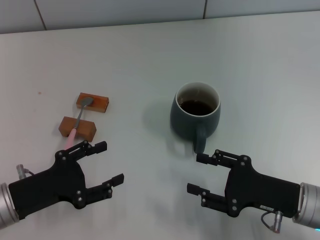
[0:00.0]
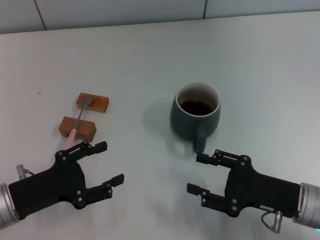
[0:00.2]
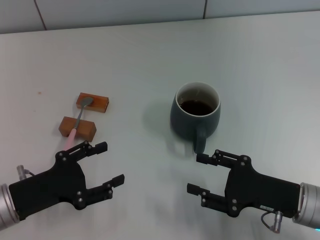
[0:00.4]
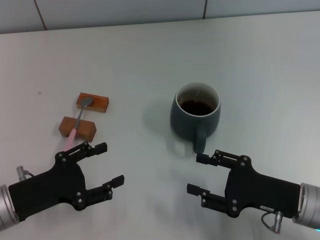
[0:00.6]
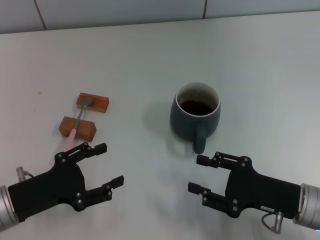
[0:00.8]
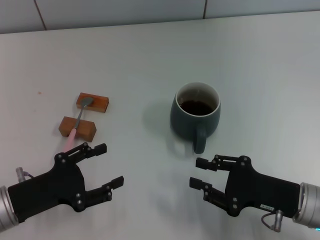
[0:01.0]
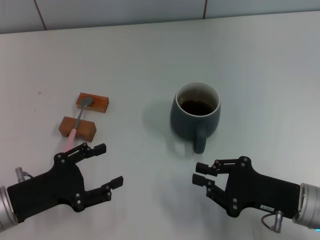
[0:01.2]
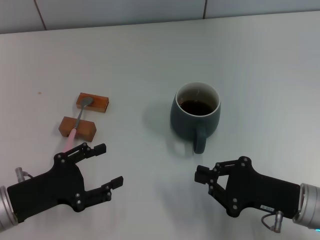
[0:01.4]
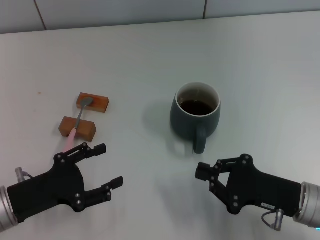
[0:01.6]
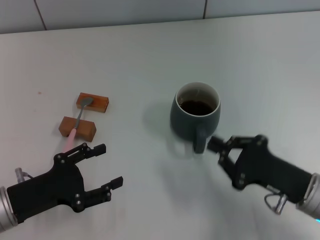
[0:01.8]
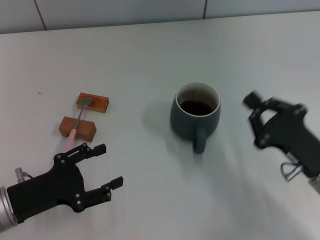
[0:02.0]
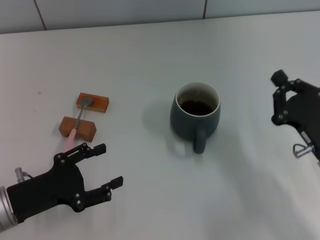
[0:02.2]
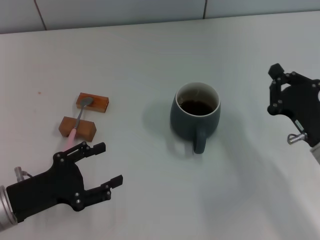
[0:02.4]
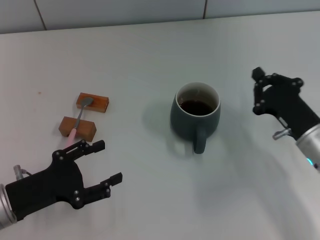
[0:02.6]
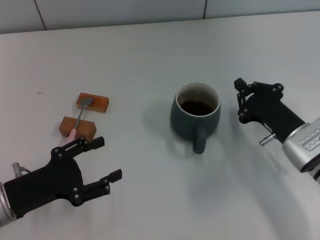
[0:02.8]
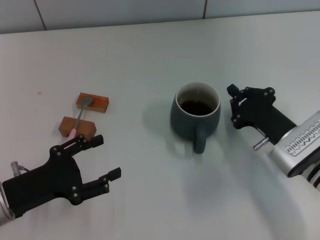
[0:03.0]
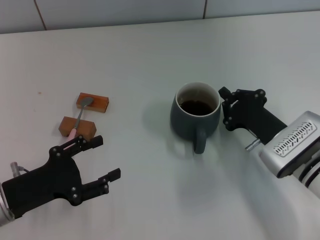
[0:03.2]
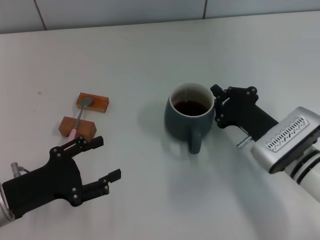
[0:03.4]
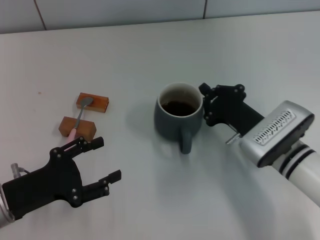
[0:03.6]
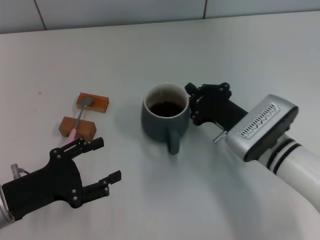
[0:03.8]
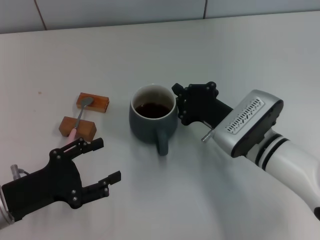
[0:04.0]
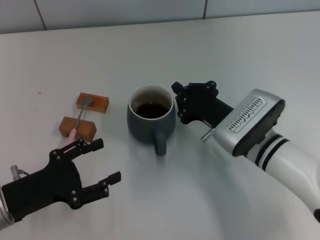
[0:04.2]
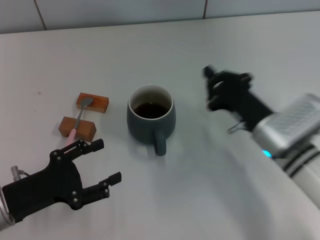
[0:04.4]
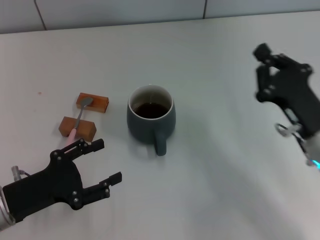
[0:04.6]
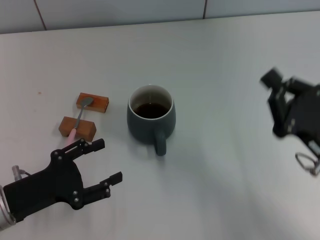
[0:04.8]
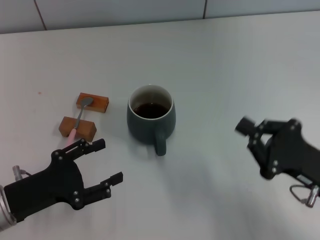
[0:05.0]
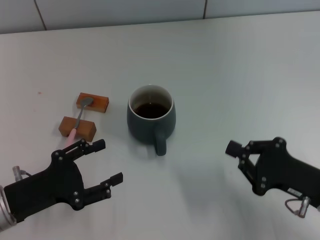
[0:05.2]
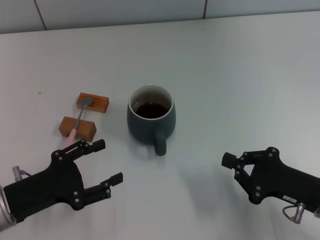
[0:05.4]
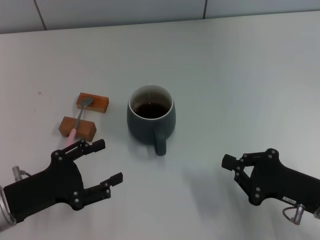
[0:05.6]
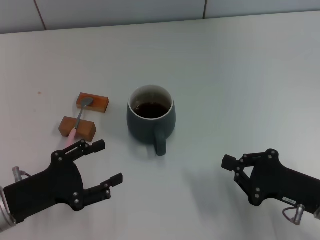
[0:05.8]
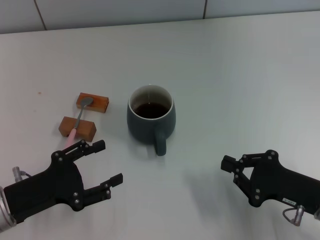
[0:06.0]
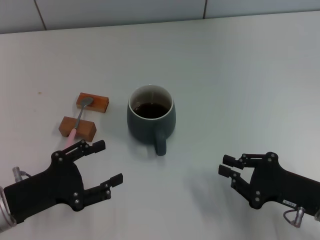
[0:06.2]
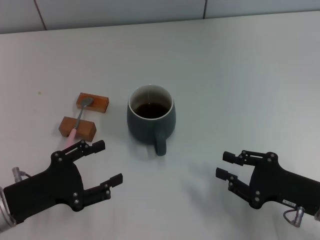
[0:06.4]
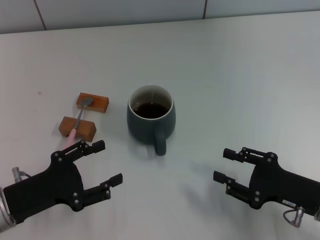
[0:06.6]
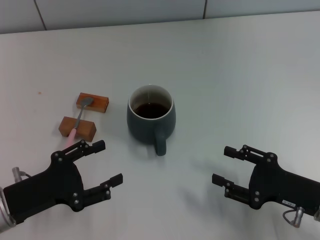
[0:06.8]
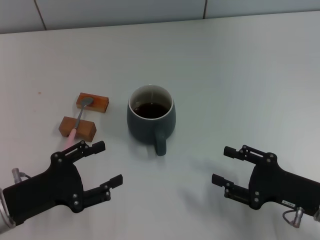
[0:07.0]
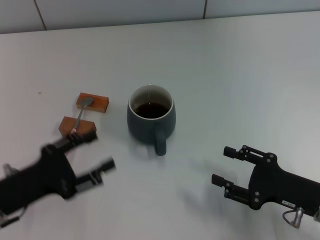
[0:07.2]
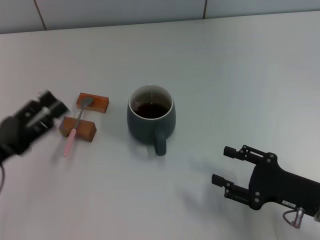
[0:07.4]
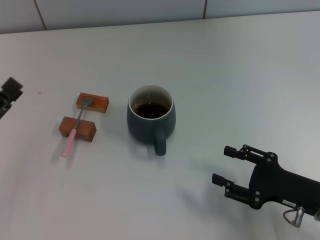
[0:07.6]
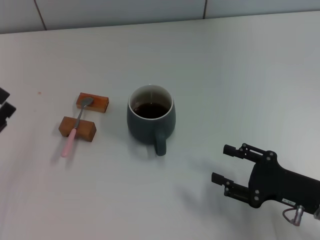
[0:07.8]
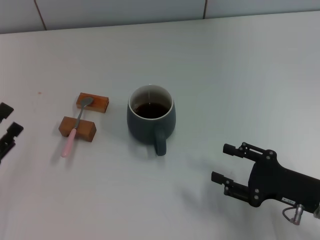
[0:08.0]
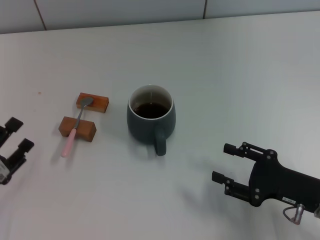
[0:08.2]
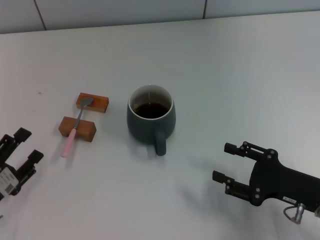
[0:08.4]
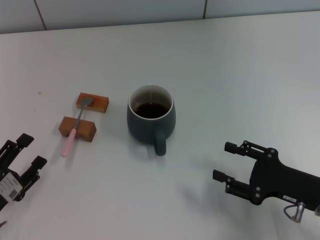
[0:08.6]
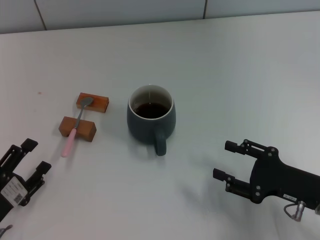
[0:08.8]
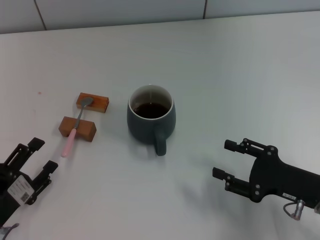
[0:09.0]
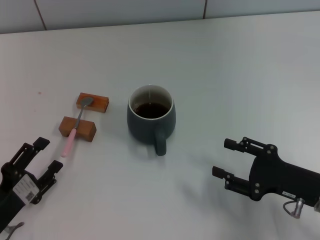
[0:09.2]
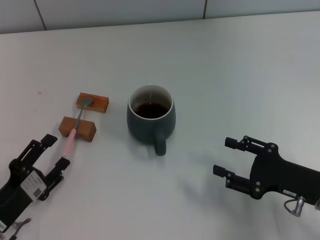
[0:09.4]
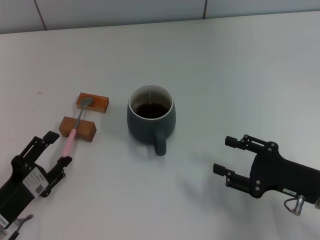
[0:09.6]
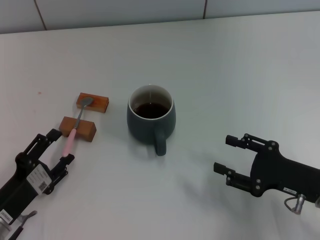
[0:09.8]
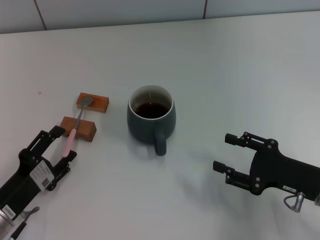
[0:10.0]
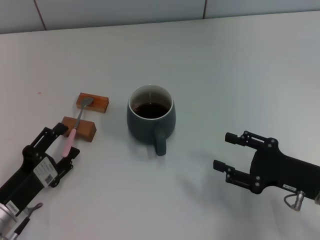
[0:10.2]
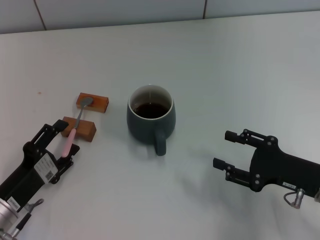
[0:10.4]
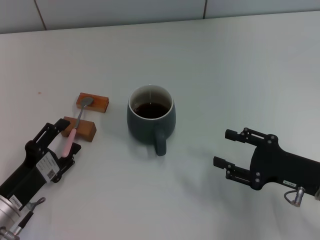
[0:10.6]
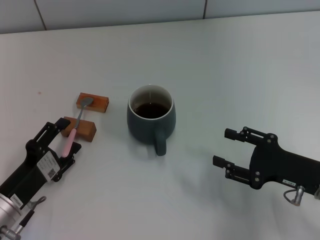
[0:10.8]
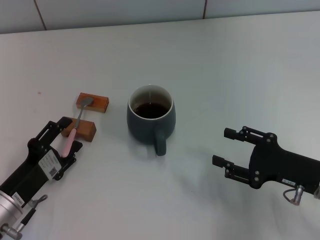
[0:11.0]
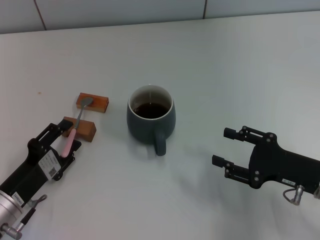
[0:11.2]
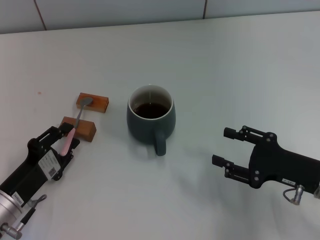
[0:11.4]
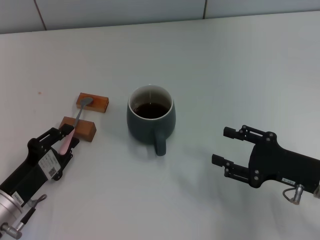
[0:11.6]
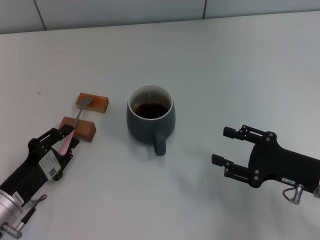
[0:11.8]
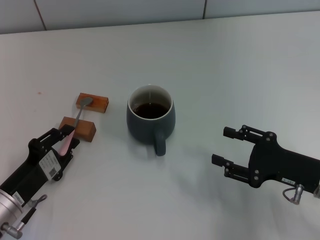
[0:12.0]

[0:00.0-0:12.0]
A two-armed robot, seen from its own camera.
Task of the whole recording: Move the grey cup to the center, lift the pink spoon, stir it three times in the cup, and put the spoon into the cup.
Step, 0:00.0 to 0:04.4: Move the cup with coffee to the center of view with the right gripper.
0:00.0 to 0:01.6: The right gripper closes.
0:01.6 to 0:03.0: The right gripper travels forward by some 5 cm.
0:04.4 to 0:06.0: The right gripper travels backward and to the right by some 10 cm.
0:06.0 to 0:07.6: The right gripper opens its fingers. The left gripper heads to the left, covering about 5 cm.
0:07.6 to 0:09.0: The left gripper is displaced downward and backward by about 10 cm.
0:09.0 to 0:10.4: The left gripper changes place by some 5 cm.
0:10.4 to 0:12.0: The left gripper closes its fingers.

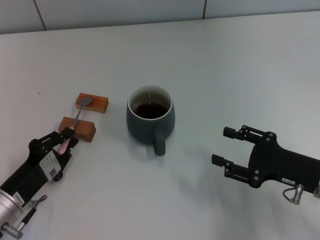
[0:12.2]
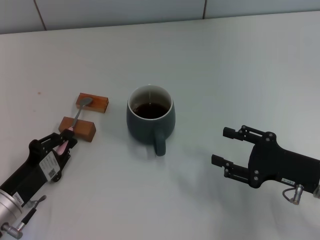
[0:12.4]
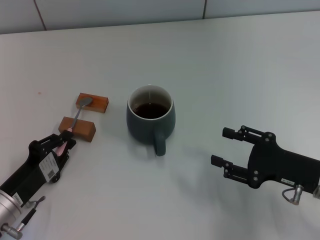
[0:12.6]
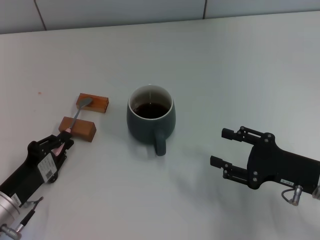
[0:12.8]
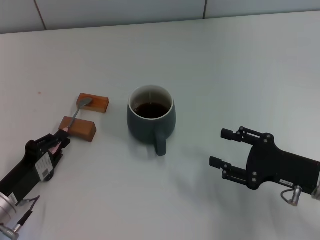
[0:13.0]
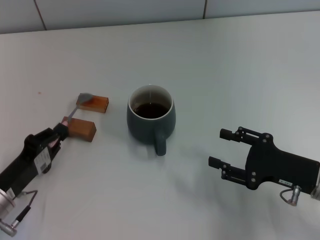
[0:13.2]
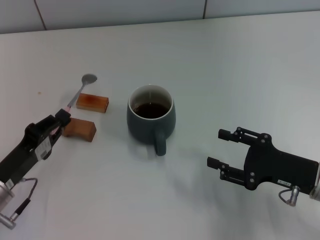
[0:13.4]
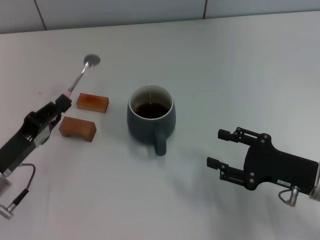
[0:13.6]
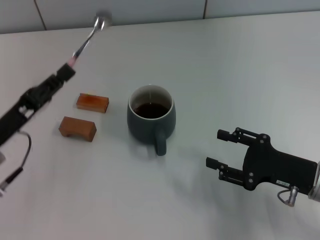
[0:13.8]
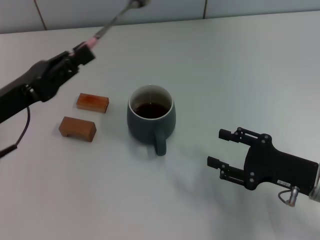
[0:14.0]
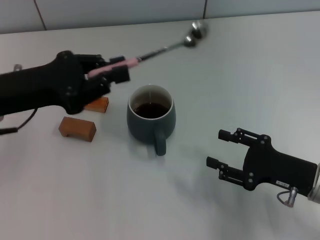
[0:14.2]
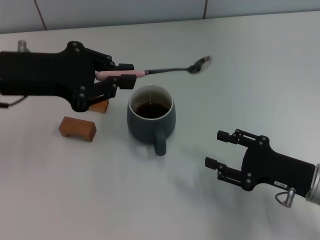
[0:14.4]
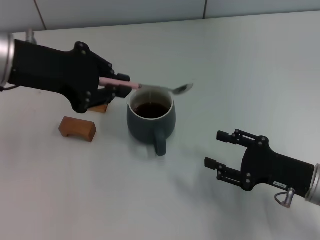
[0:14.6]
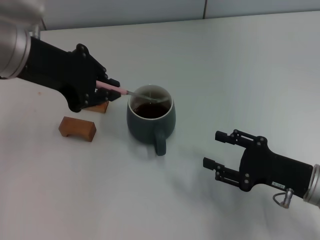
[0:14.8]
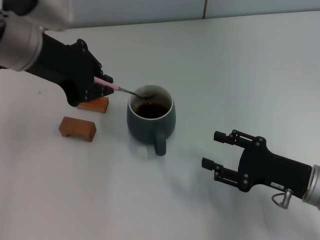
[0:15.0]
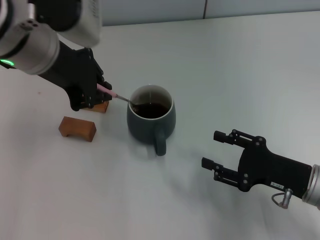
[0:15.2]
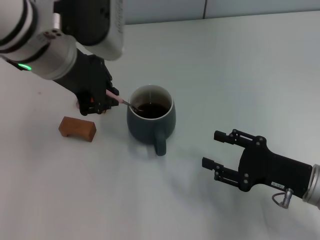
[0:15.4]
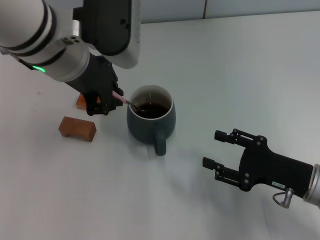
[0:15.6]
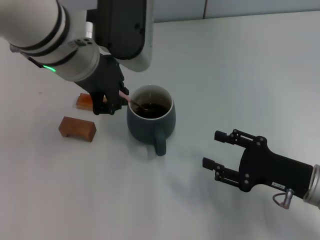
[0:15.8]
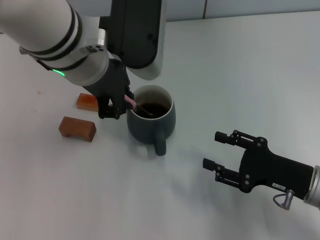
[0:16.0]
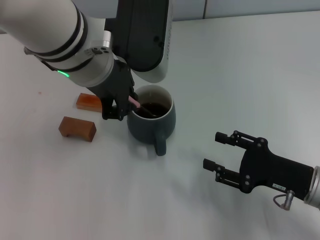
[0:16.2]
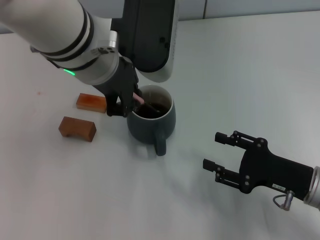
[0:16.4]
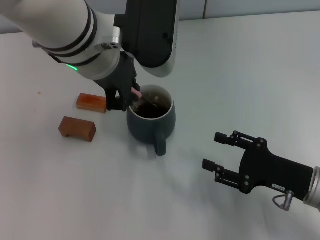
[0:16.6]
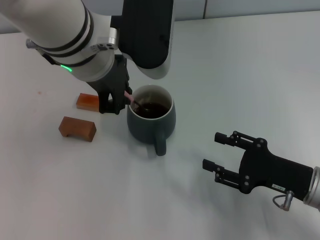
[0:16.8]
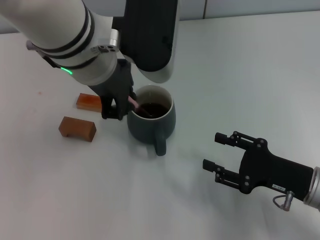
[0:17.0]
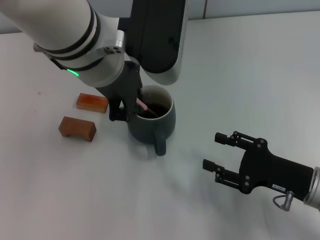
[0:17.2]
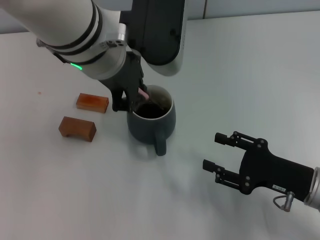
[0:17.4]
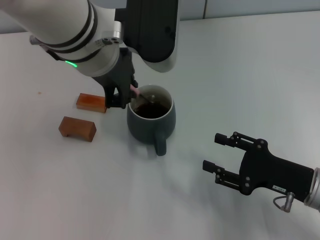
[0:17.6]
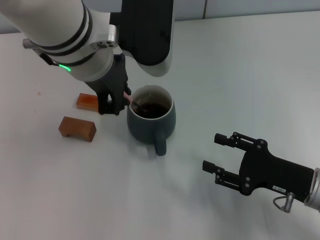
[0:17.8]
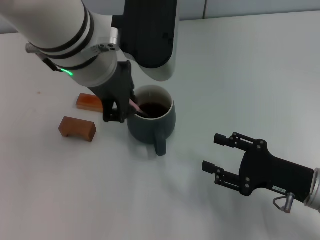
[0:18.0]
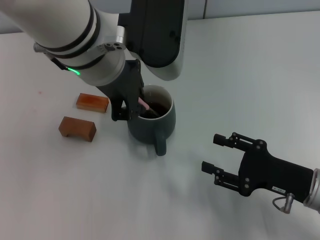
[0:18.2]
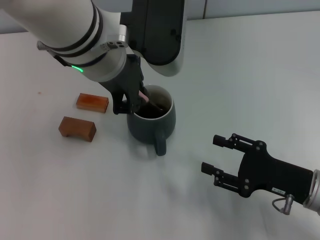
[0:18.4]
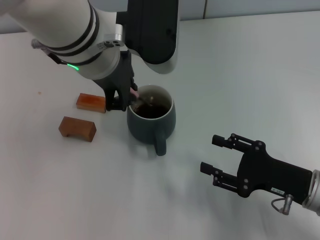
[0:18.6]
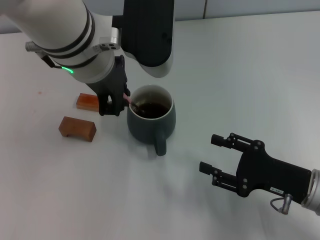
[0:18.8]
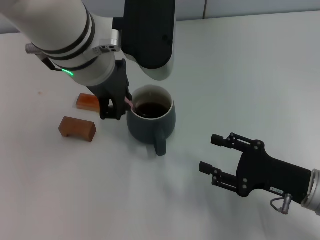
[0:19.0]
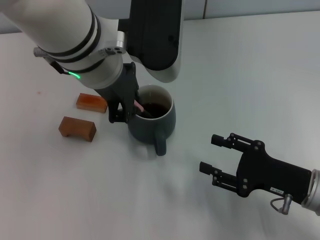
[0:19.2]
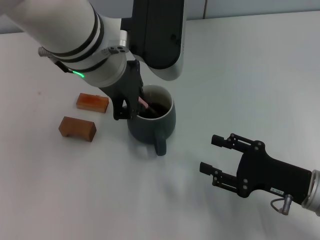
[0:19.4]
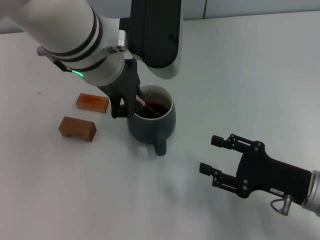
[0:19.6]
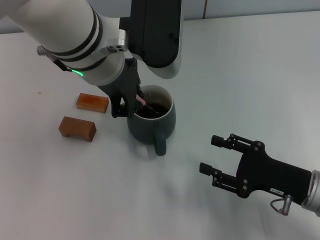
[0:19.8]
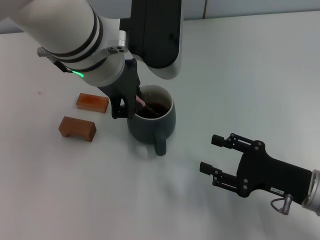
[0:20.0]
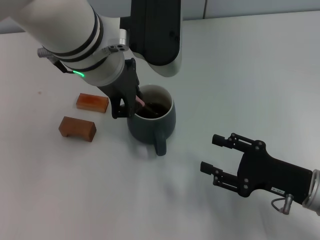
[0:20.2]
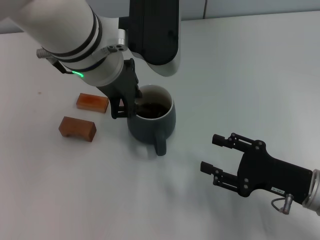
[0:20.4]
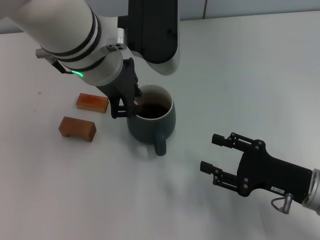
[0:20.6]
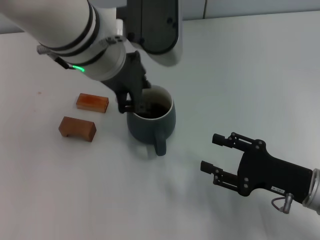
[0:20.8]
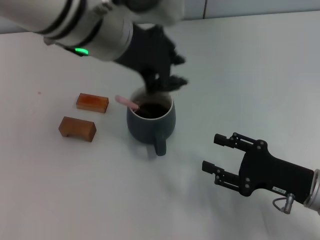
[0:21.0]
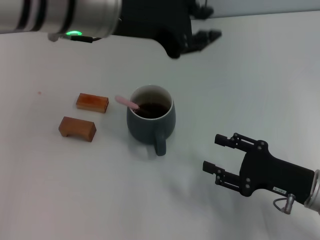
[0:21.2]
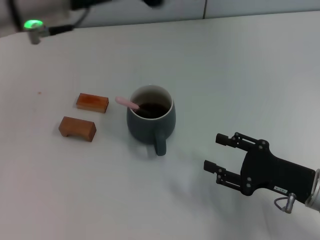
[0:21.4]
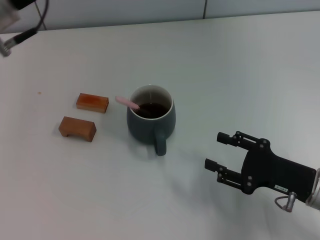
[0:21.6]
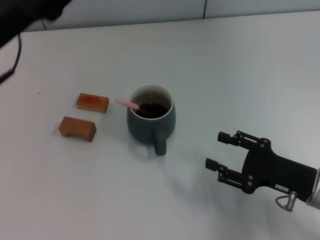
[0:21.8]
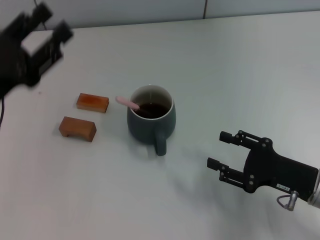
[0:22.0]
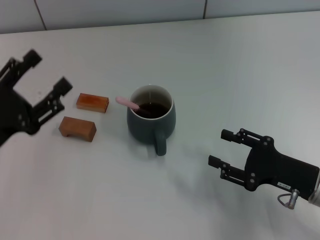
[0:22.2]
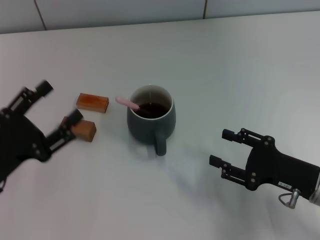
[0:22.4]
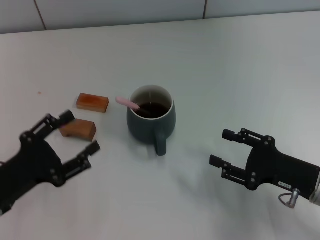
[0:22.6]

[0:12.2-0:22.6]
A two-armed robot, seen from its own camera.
Task of the whole recording: Move the grey cup to the center, lift the pink spoon, stir it three times in the cup, and put the spoon into the cup.
Step, 0:13.8 to 0:20.8: Stir the coffee in the cup with the left gripper.
0:13.6 to 0:15.2: The left gripper heads upward, to the right and forward, covering approximately 25 cm.
0:15.2 to 0:16.6: The left gripper moves to the right, approximately 5 cm.
0:16.6 to 0:19.6: There are only small adjustments of the grippers.
0:19.6 to 0:21.2: The left gripper opens its fingers.
0:21.2 to 0:22.6: The left gripper shifts approximately 30 cm downward, to the left and backward, and opens its fingers.
